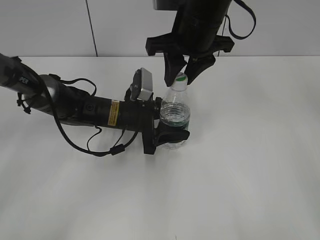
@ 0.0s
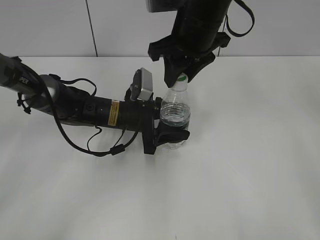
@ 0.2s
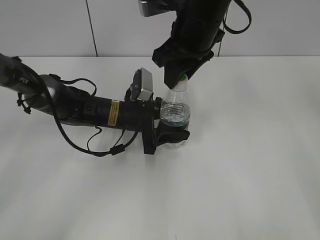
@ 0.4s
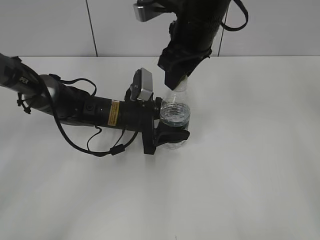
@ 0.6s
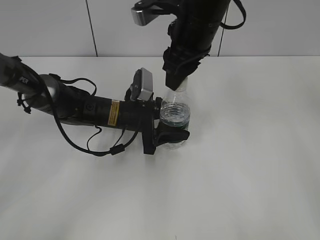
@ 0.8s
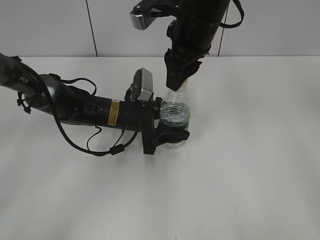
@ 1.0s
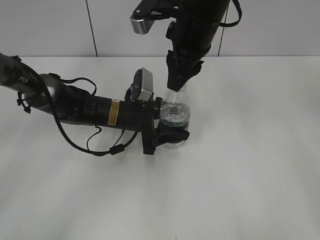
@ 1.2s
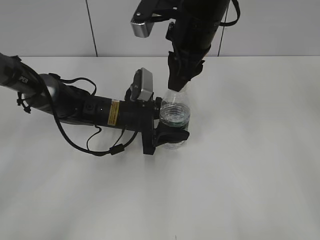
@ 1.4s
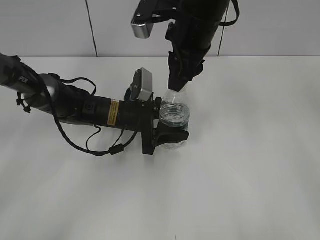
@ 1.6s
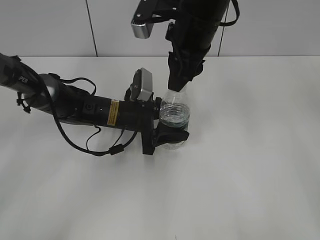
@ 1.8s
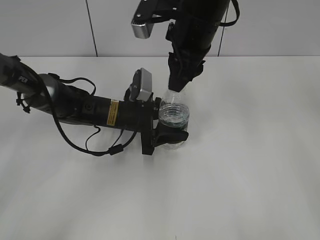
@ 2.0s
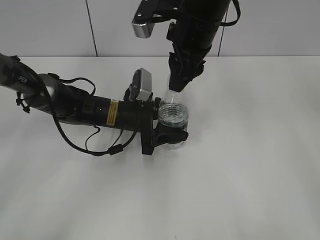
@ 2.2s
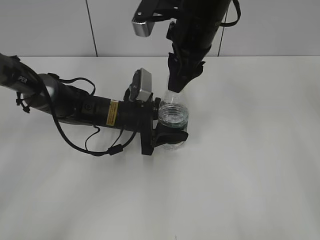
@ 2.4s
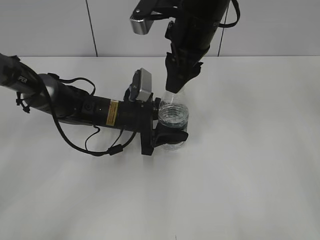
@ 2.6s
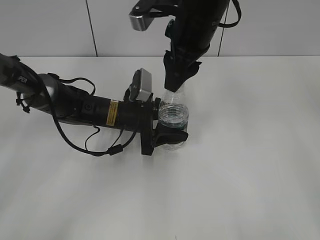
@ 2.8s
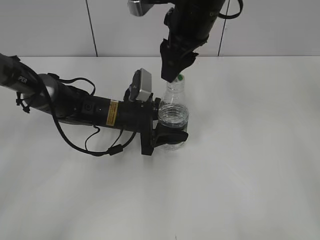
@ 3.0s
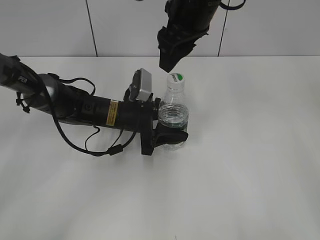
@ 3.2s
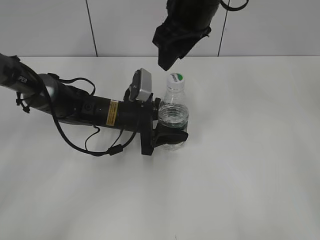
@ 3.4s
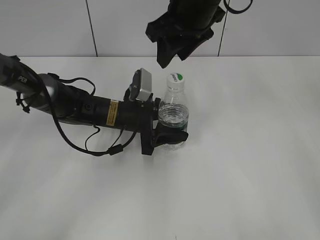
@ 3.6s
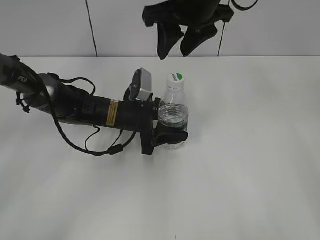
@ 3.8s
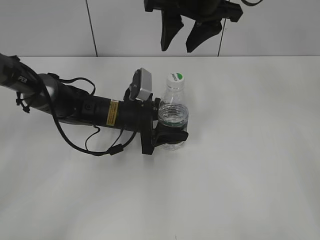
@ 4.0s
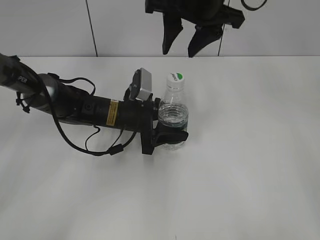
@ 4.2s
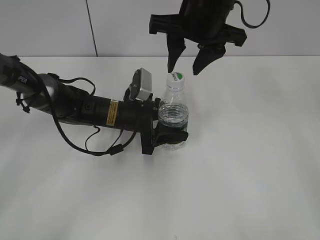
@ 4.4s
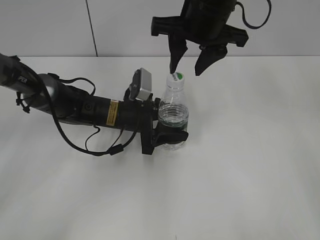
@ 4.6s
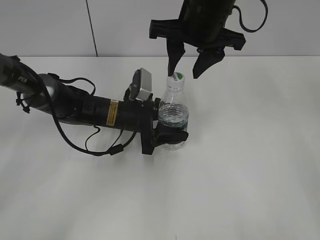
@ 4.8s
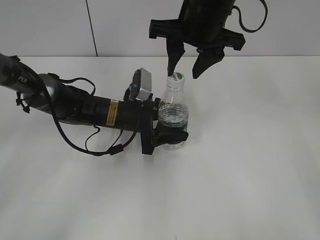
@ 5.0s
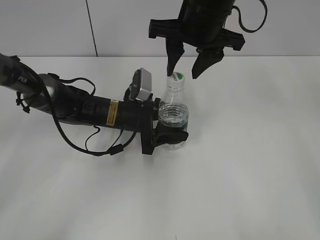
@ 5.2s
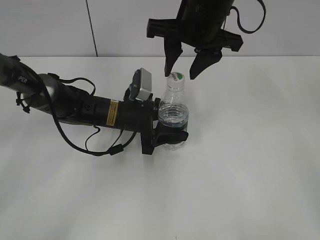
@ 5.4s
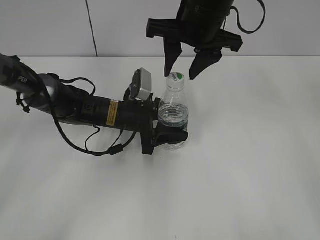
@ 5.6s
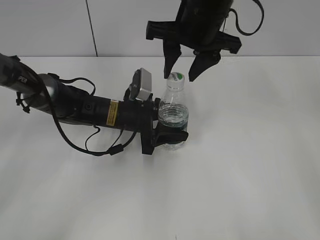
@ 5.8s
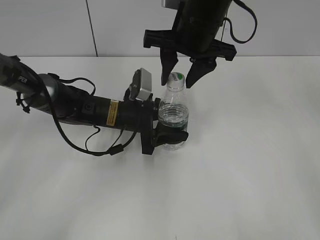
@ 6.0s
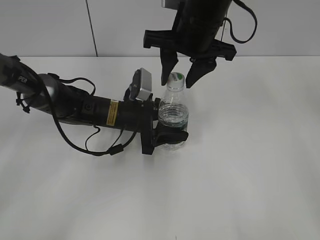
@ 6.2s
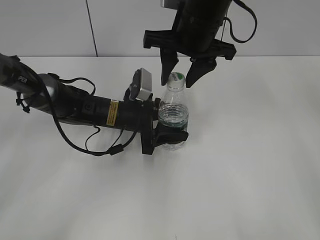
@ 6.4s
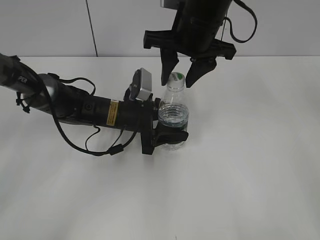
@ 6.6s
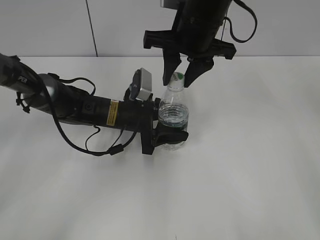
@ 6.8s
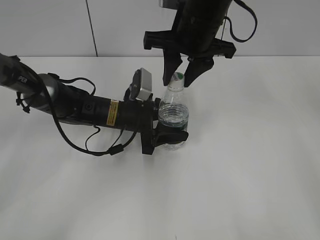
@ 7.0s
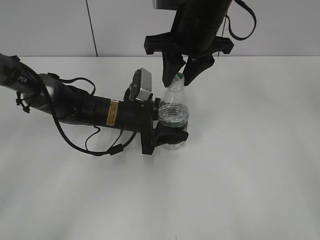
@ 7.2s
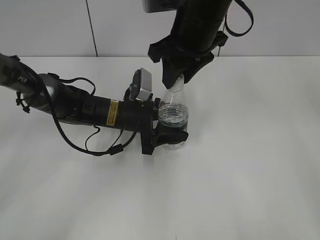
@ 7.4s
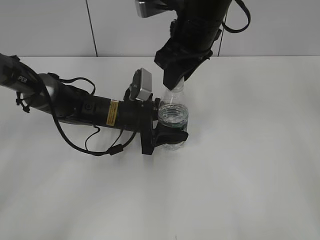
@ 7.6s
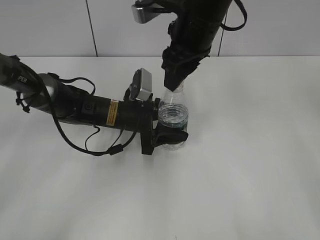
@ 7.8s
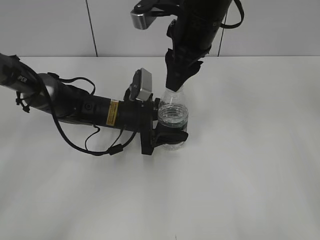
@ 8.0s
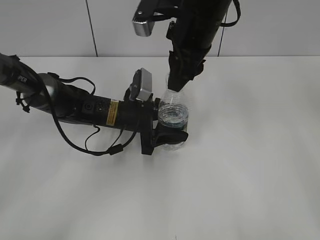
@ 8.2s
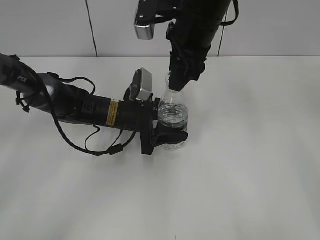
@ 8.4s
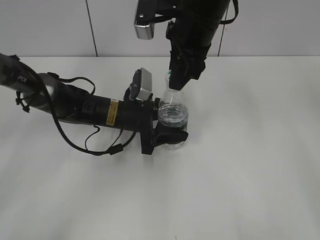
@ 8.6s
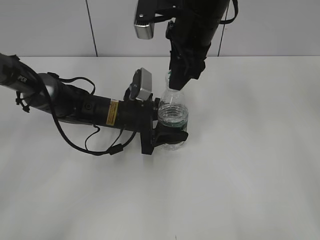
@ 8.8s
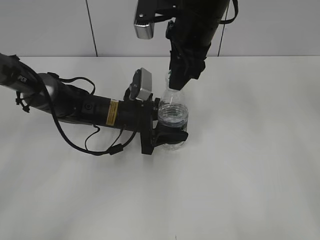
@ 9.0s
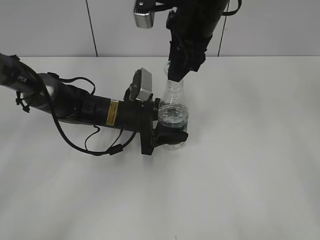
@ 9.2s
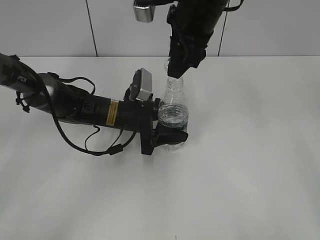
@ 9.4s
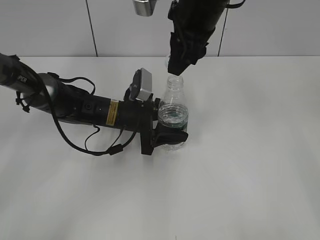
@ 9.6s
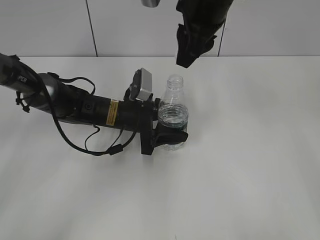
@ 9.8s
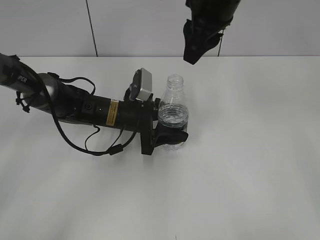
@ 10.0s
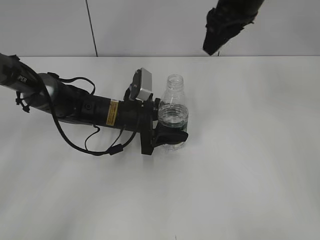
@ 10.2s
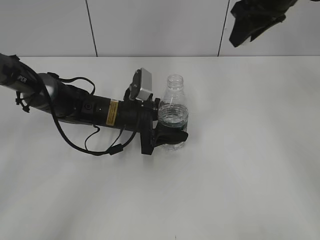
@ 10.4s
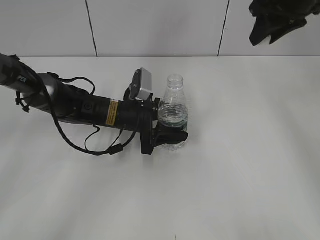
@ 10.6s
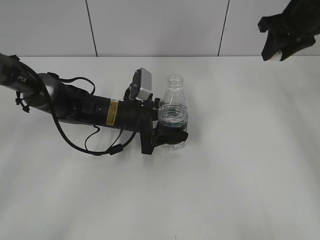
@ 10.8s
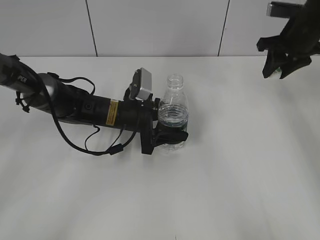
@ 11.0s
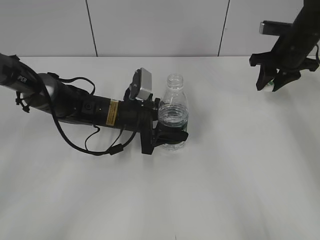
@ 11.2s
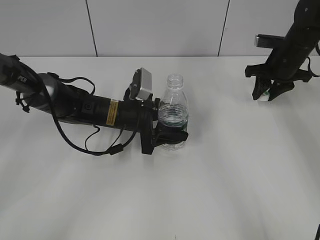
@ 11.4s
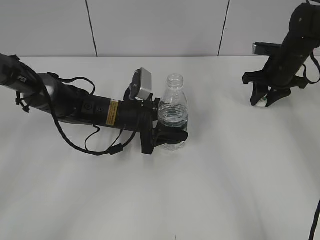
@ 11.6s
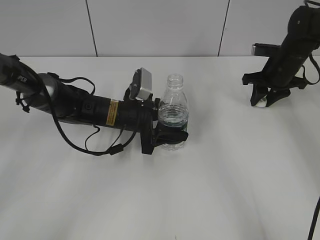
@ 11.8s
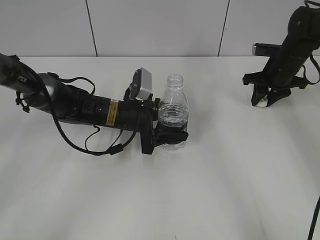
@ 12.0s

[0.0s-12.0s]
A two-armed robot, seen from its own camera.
Step, 0.0s to 9.4s: Unscrew the bottle cap with the right gripper while holding the bottle with the left gripper.
1.6s to 3.0s: The right gripper opens up.
4.4s to 6.0s: The grippers make only small movements.
6.0s to 7.6s: The right gripper closes up.
9.0s to 10.4s: The right gripper shifts about 15 cm to the right and forward.
10.4s to 12.0s: The right gripper moves downward and to the right, some 20 cm.

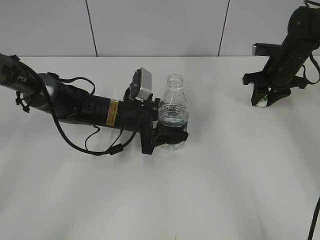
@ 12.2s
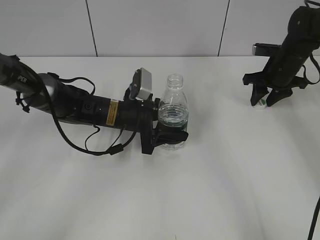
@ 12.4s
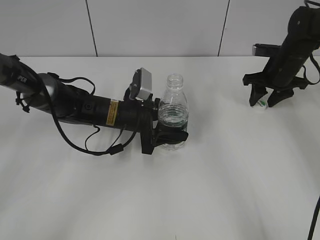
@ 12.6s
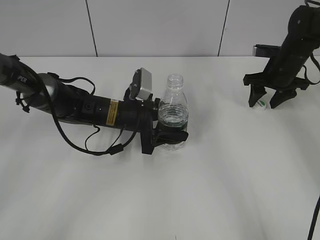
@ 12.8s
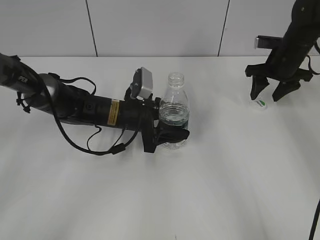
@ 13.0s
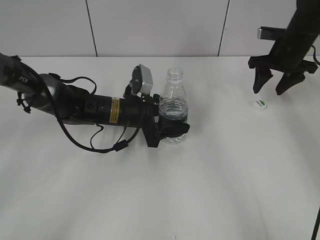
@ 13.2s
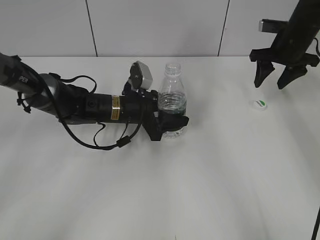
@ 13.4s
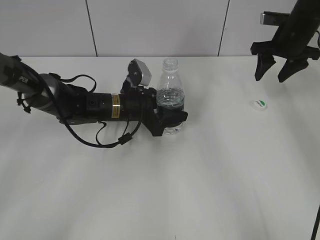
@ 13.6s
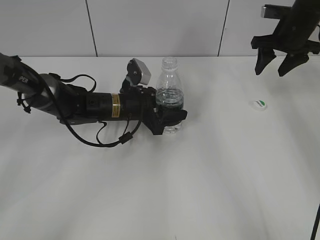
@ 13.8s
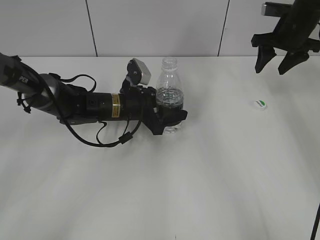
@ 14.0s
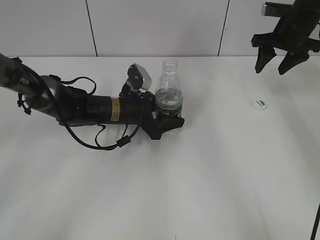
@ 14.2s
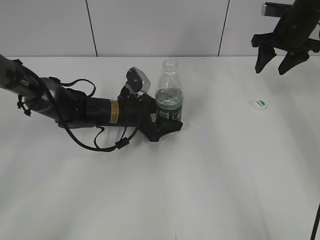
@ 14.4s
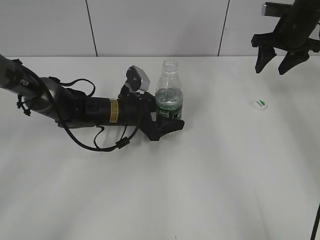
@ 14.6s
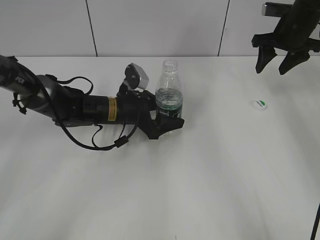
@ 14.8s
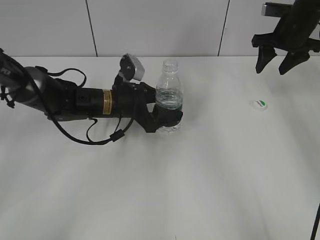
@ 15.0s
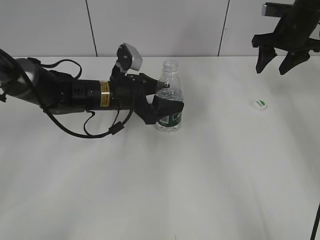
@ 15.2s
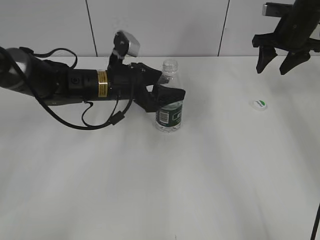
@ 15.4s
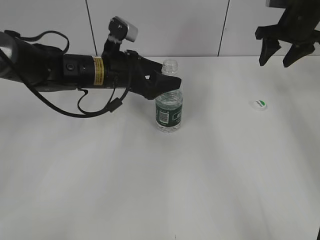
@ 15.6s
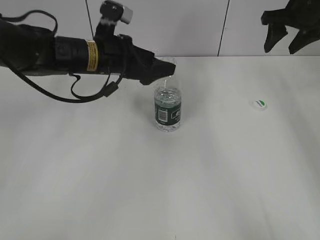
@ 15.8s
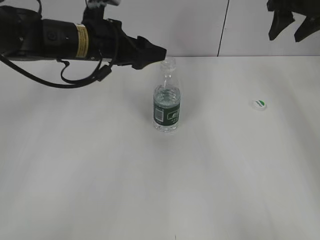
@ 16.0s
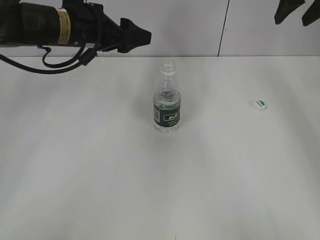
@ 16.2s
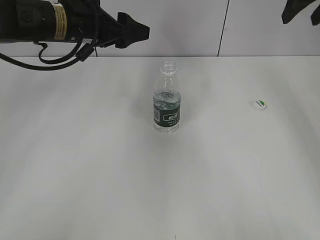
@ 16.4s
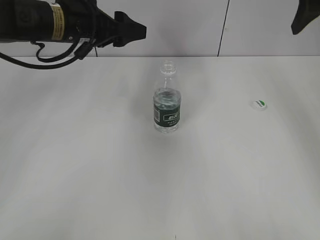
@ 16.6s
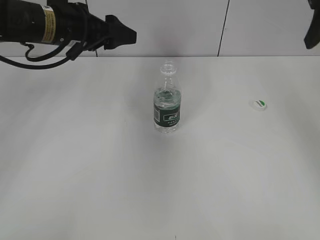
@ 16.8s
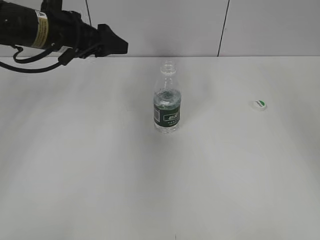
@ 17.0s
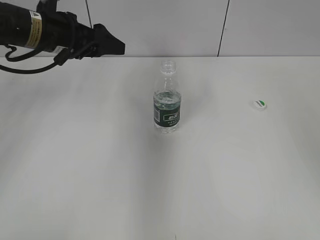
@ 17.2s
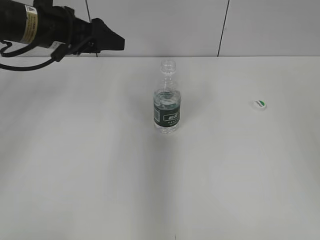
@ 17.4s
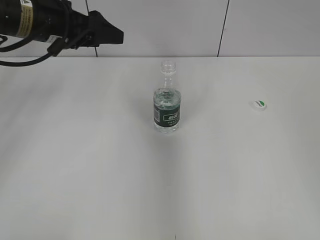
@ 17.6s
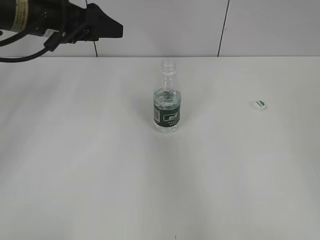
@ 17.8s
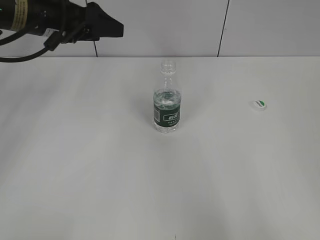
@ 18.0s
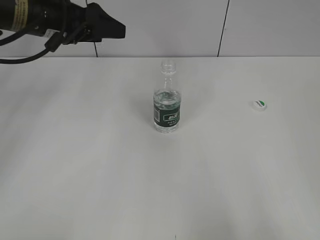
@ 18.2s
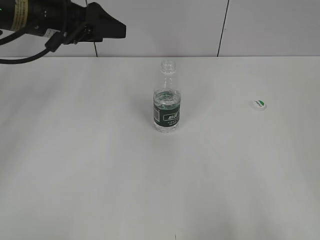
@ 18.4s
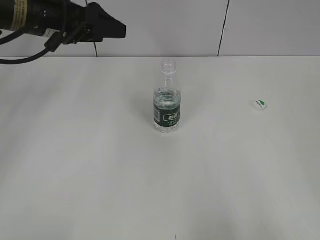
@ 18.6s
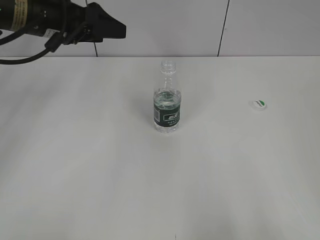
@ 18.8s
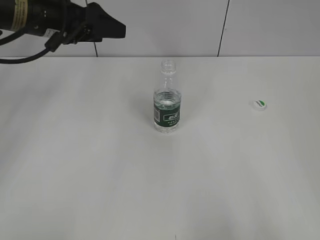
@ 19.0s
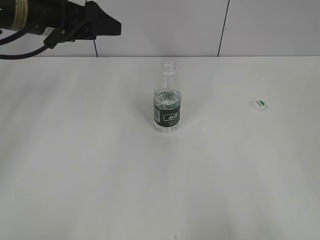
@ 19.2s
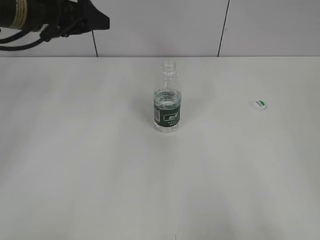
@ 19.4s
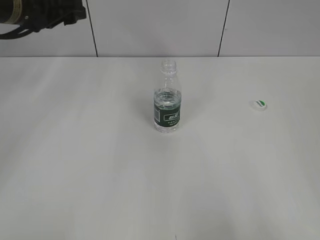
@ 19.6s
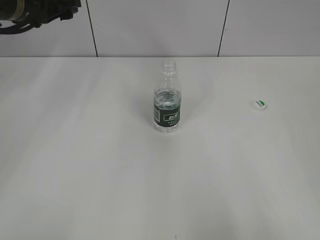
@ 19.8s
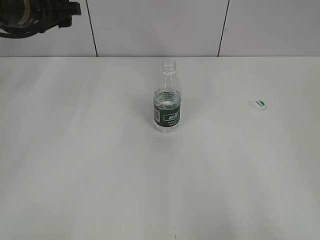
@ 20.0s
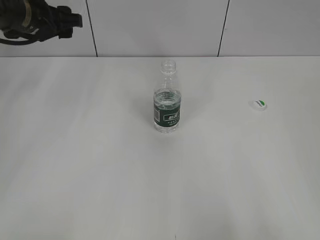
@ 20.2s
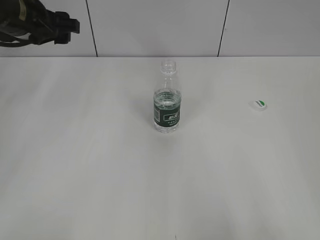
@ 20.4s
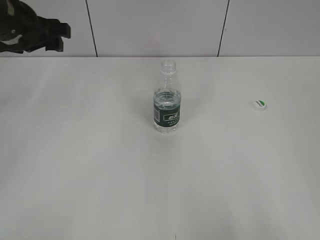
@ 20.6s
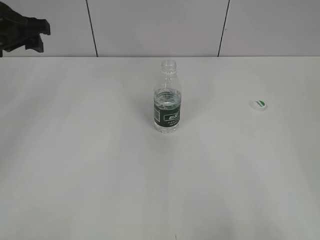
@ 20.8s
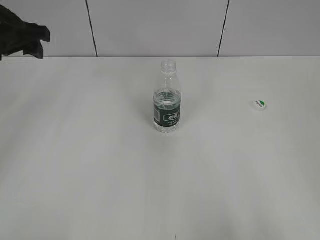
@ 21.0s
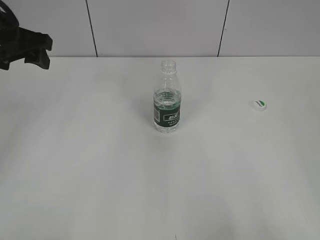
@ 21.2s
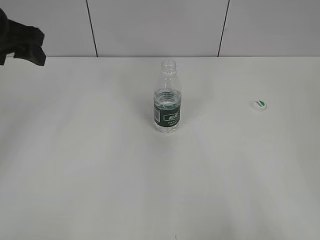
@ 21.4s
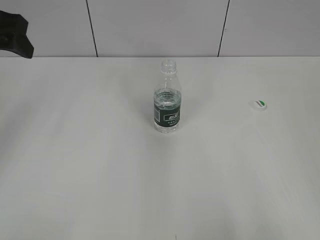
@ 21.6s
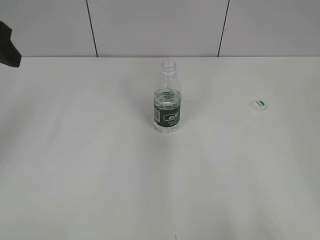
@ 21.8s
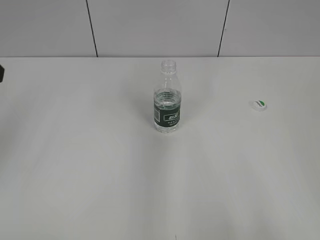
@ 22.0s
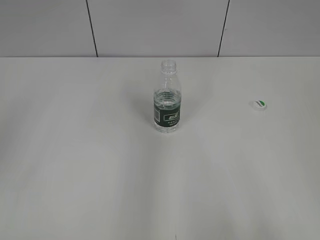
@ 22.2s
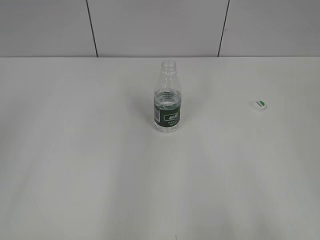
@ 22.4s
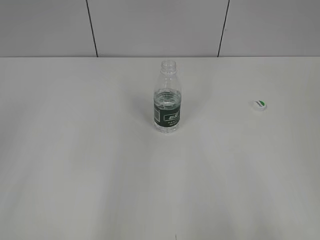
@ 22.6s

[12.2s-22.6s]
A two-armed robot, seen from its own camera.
Step, 13.2s to 15.2s: Place the bottle on the table with the left gripper.
12.2s to 13.6s: The right gripper shifts some 5 cm upward, and opens up.
13.6s to 15.2s: The left gripper opens up.
15.2s to 16.6s: The right gripper heads upward and backward, covering roughly 15 cm, while the left gripper heads upward and to the left, covering approximately 15 cm.
16.6s to 18.2s: The right gripper heads backward, covering approximately 40 cm.
19.6s to 21.2s: The left gripper travels backward by approximately 5 cm.
21.2s to 22.6s: The left gripper heads backward, covering some 25 cm.
